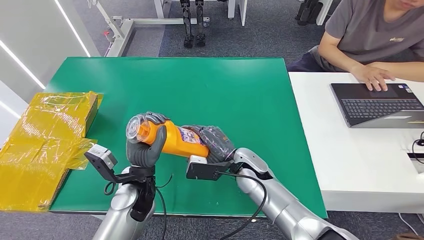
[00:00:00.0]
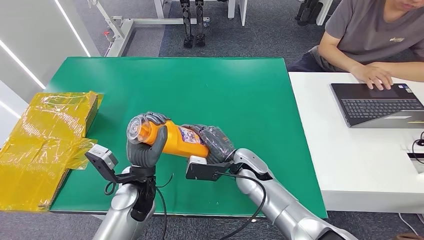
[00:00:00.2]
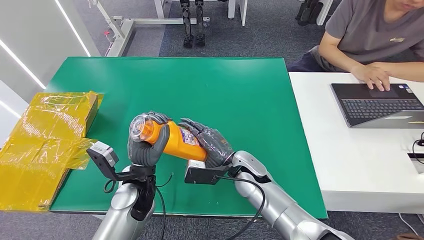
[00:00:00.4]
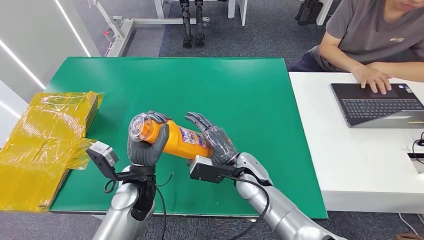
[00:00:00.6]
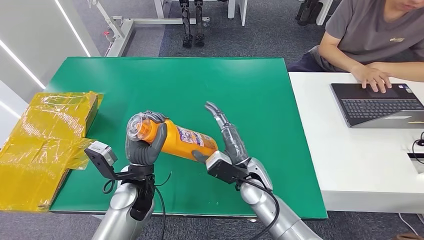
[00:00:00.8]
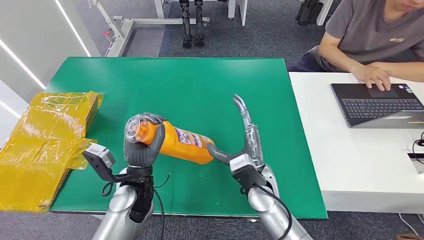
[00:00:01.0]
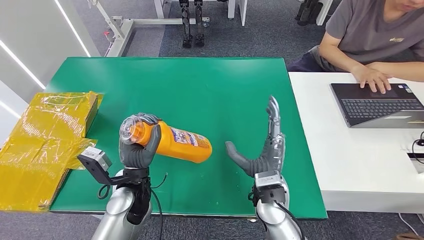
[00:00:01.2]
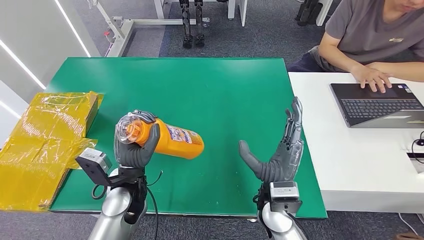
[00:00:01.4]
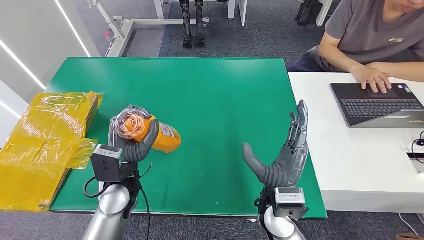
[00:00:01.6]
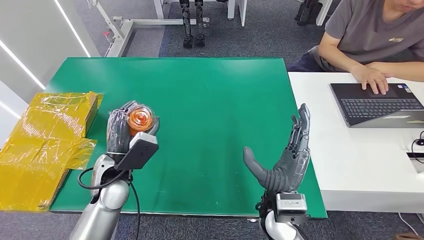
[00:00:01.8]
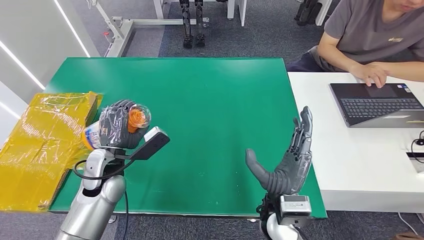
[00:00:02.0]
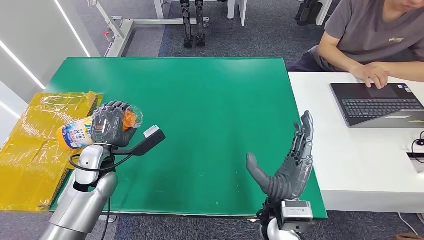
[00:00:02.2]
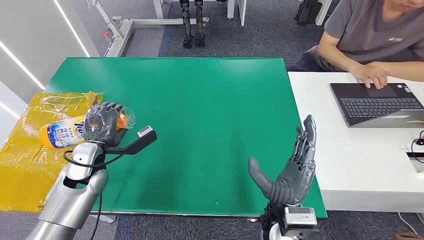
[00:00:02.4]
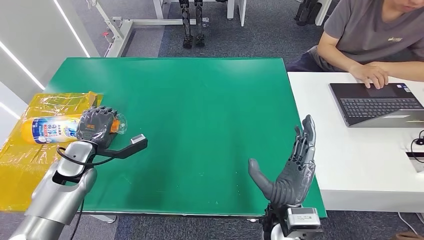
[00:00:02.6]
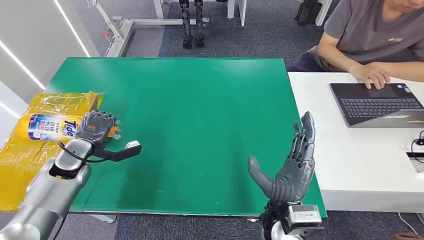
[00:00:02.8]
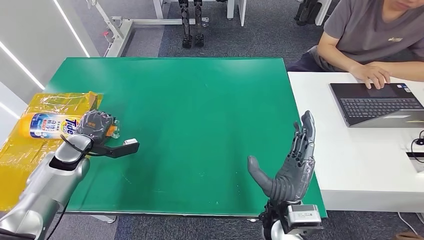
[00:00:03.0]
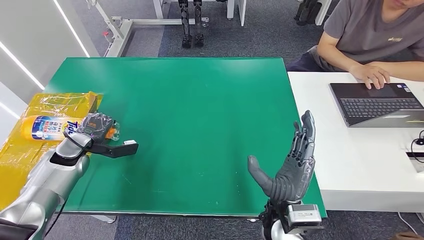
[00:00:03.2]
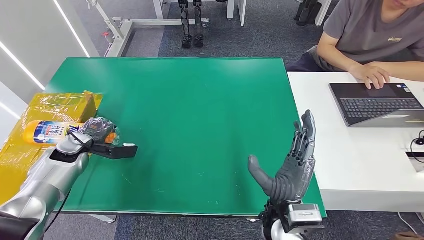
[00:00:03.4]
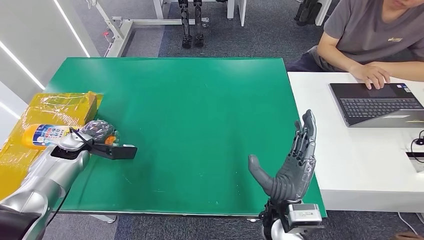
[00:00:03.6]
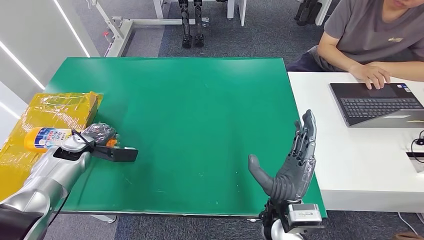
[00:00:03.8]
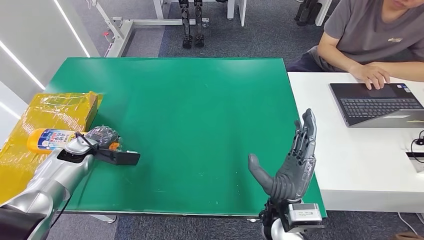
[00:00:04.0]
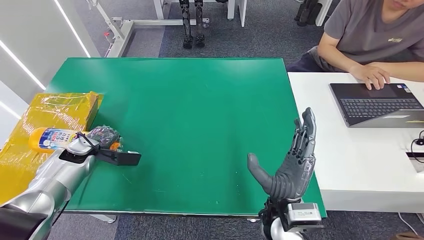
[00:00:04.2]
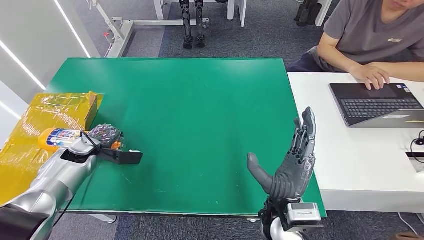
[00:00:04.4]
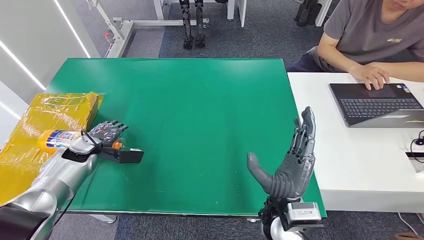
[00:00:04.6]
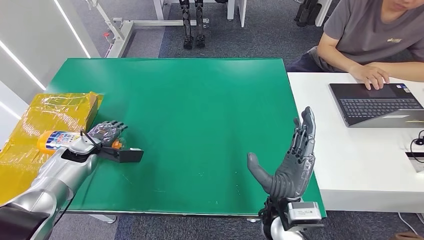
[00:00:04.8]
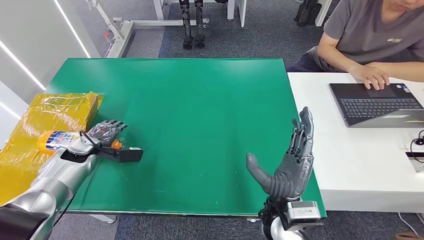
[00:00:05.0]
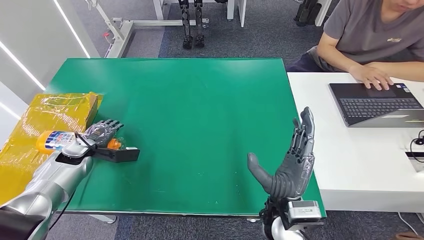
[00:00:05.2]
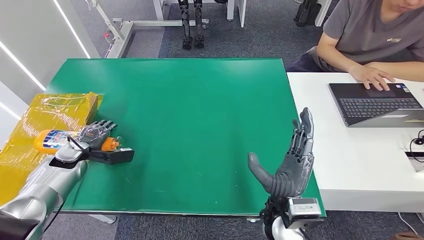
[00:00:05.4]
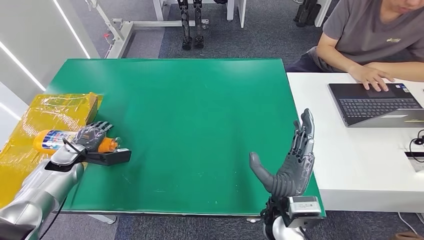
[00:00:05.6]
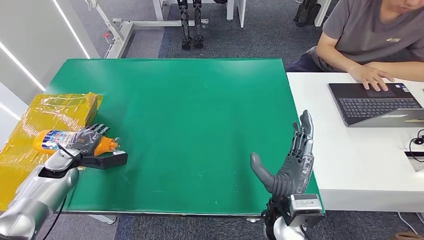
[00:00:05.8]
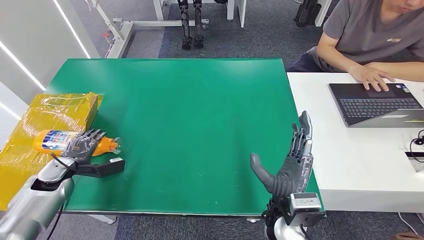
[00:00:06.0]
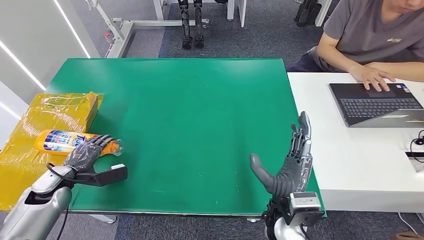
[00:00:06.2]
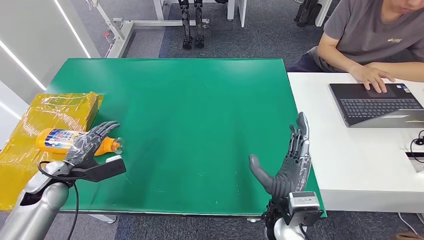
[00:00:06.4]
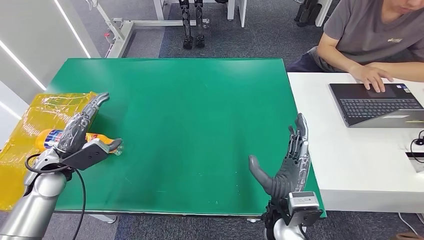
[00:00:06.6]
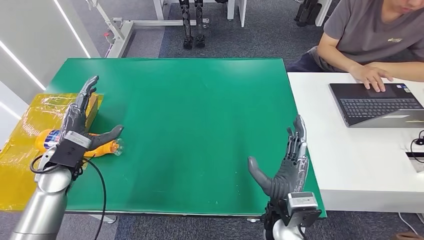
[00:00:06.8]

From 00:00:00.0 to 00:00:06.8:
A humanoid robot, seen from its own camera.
Step, from 00:00:00.0 to 00:00:06.8: Turn the bottle to the front side.
From 00:00:00.0 to 00:00:01.4: The right hand heads backward, covering about 10 cm.
From 00:00:01.4 to 00:00:02.8: The left hand is displaced to the left and forward by about 20 cm.
From 00:00:02.8 to 00:00:04.0: The left hand changes place by roughly 5 cm.
From 00:00:04.0 to 00:00:05.4: The hands make only small movements.
From 00:00:05.4 to 00:00:06.8: The left hand travels upward, to the right and backward by roughly 10 cm.
